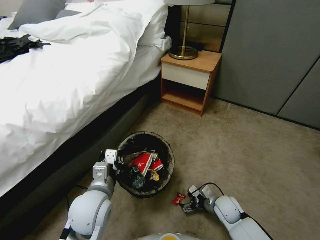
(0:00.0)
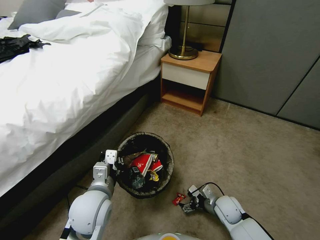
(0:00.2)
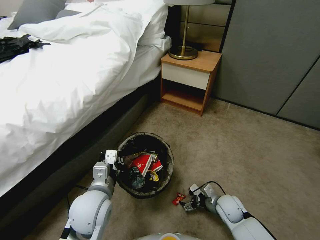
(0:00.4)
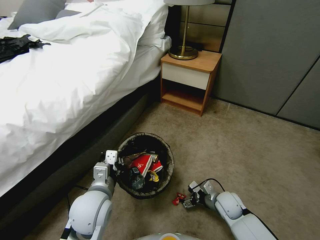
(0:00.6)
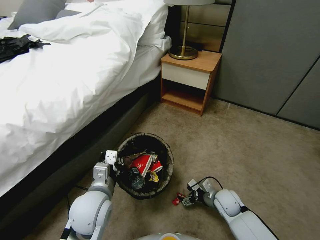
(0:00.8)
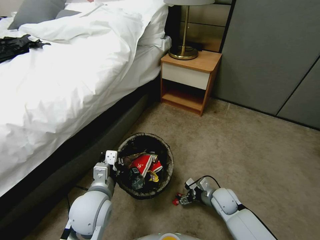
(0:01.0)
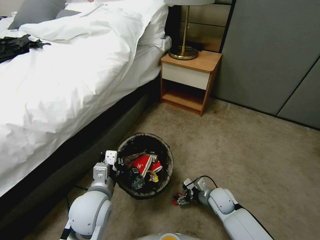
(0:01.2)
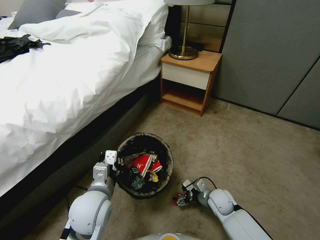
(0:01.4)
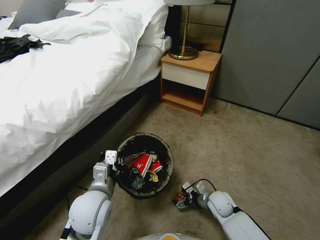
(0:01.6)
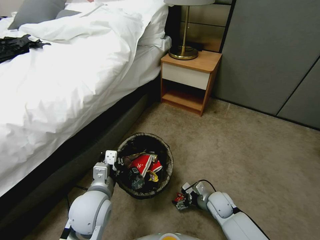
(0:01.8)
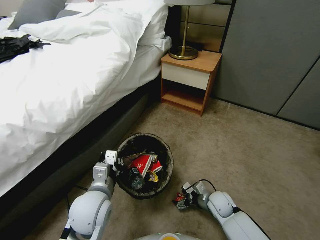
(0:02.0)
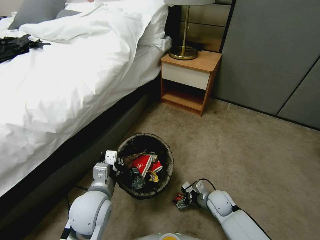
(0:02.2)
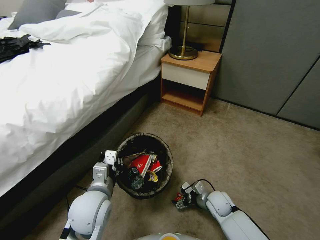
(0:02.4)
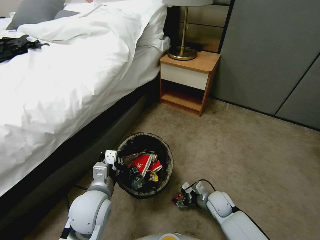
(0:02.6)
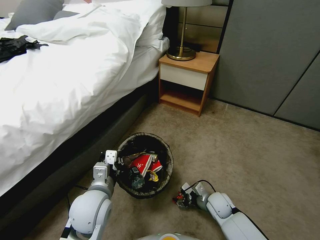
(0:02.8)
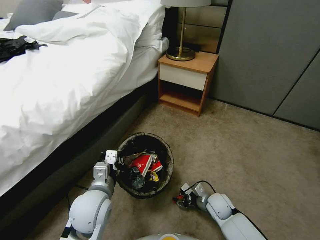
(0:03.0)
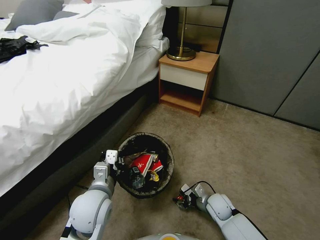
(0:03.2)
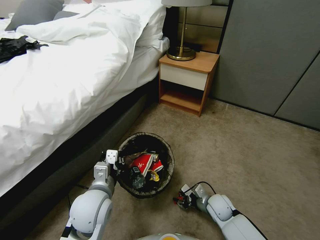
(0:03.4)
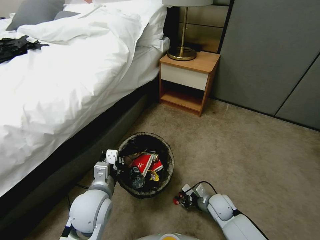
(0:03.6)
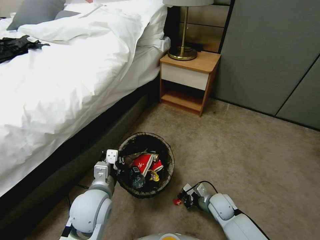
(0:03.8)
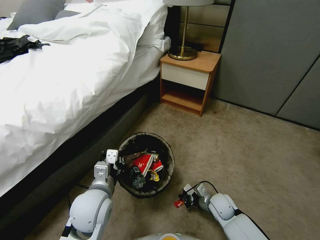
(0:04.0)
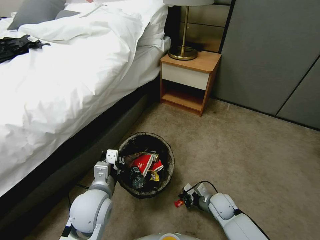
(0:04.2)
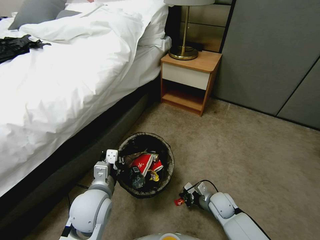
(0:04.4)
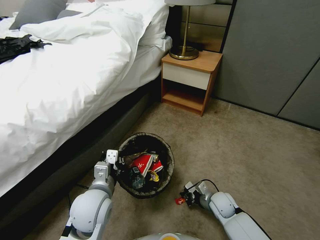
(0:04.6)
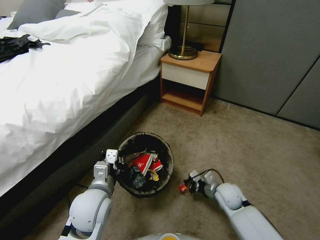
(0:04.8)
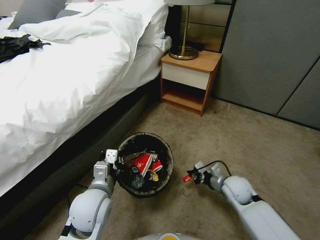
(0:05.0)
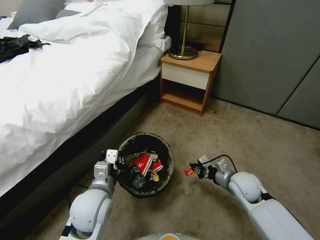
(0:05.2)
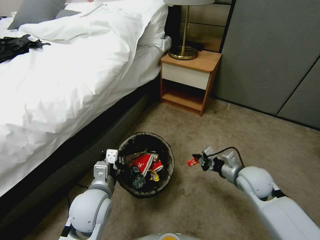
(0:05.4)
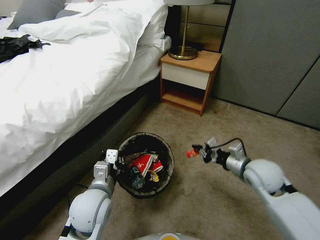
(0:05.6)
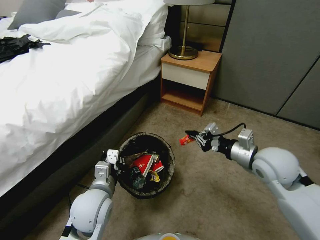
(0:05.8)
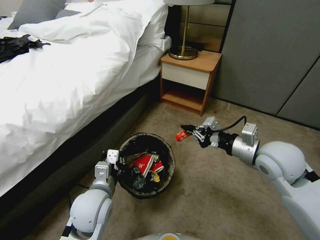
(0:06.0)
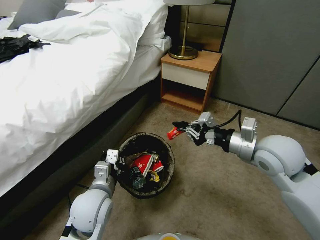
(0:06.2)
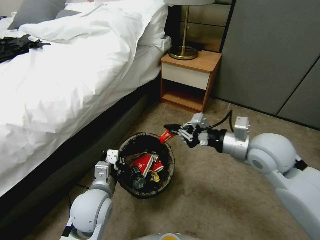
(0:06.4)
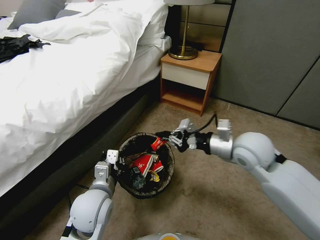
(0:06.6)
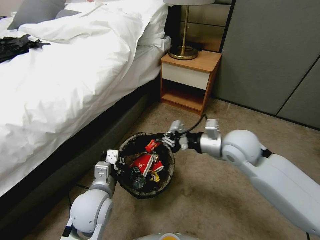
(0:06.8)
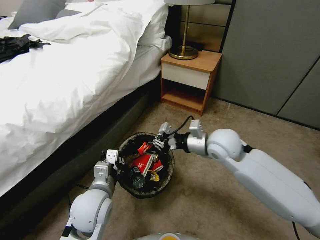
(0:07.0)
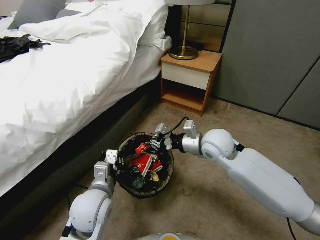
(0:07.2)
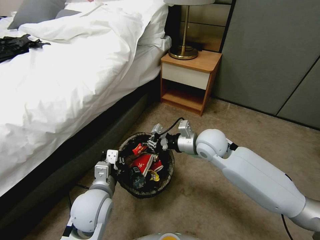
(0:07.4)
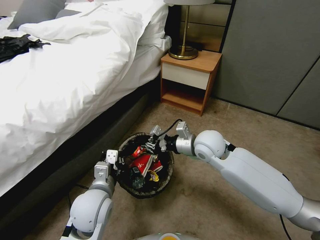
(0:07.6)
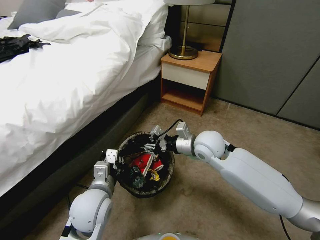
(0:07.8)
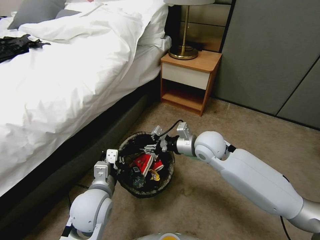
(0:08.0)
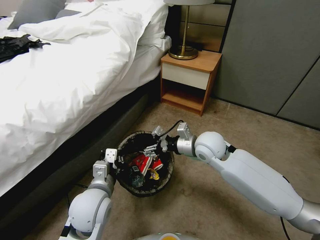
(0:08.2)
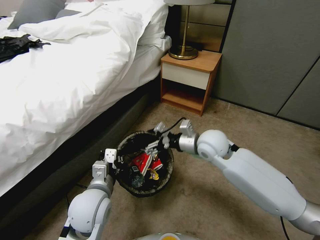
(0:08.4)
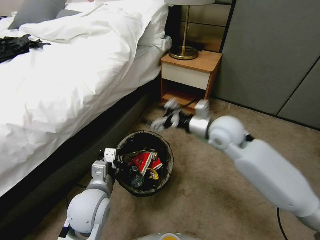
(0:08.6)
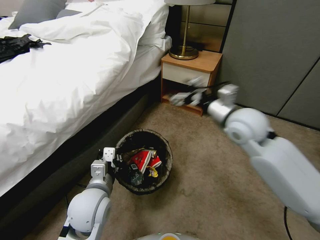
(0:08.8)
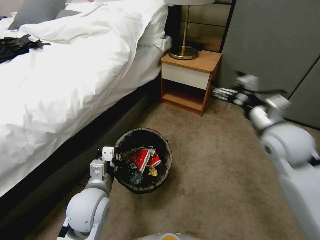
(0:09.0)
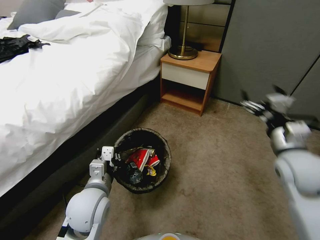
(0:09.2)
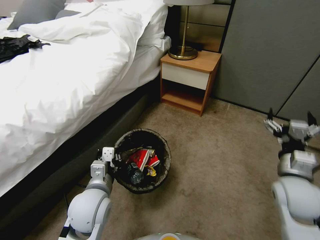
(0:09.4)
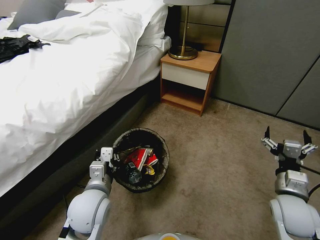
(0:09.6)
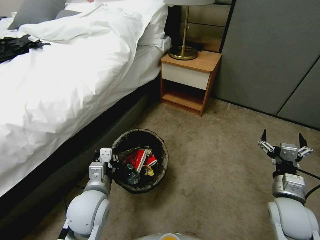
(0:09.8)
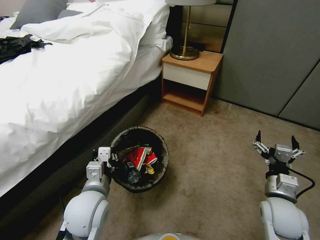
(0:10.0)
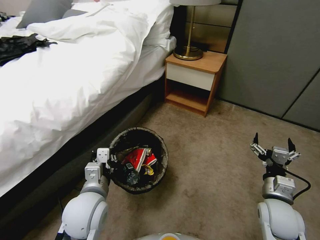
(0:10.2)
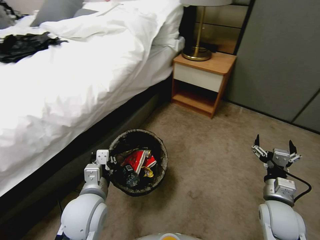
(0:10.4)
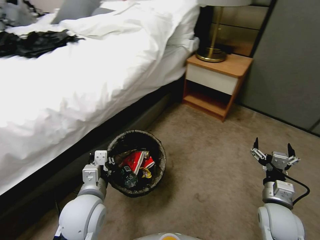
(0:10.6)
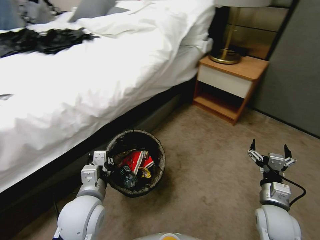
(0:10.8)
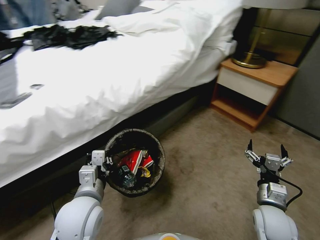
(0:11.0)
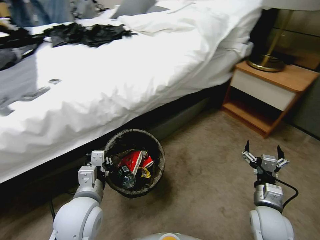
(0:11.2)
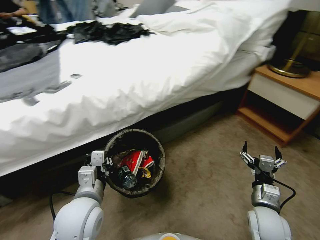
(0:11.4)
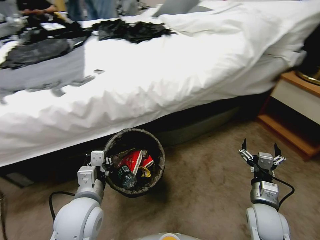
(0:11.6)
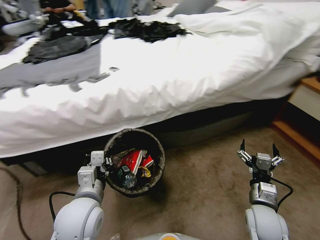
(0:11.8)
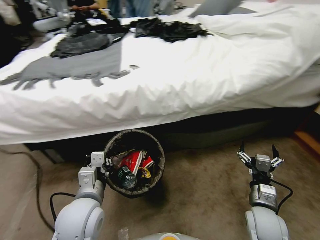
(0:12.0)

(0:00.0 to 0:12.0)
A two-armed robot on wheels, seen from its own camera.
Task of the whole recording: Pick up the trash bin, then pick up the garbage from the floor and place it into the trash bin.
0:00.0 - 0:01.6: The grippers move only a little.
0:01.6 - 0:03.0: The right gripper closes up.
0:03.0 - 0:04.4: The right gripper closes its fingers.
0:04.4 - 0:06.0: The right gripper goes roughly 35 cm upward.
0:06.0 - 0:07.6: The right gripper moves to the left, forward and downward, some 20 cm.
0:07.6 - 0:09.0: The right gripper heads to the right and upward, covering some 20 cm, and opens its fingers.
0:09.0 - 0:10.4: The right gripper shifts roughly 25 cm downward and backward.

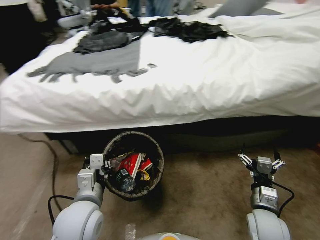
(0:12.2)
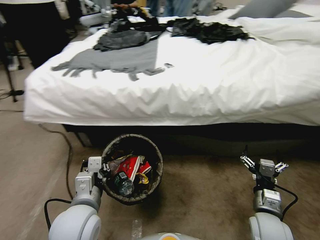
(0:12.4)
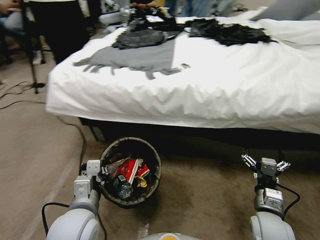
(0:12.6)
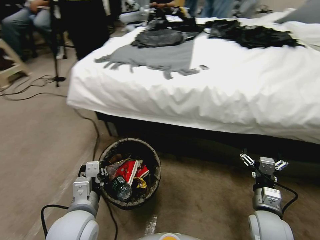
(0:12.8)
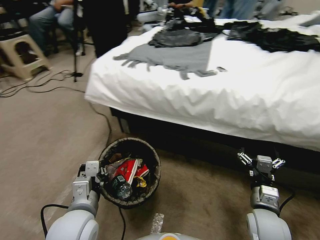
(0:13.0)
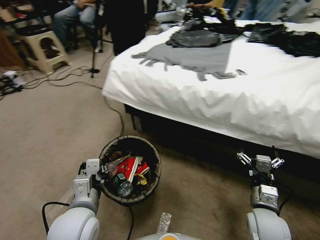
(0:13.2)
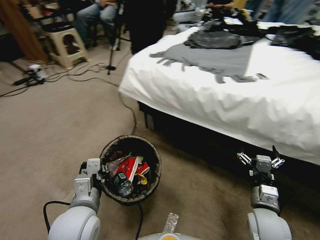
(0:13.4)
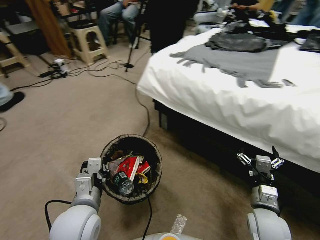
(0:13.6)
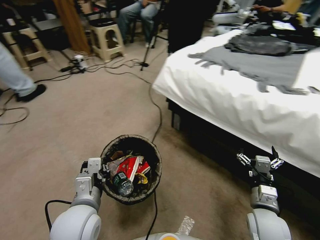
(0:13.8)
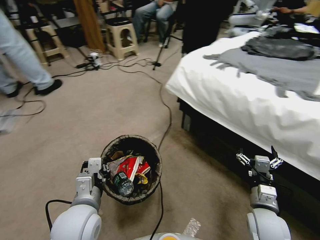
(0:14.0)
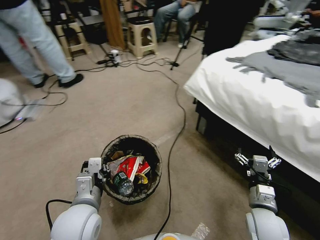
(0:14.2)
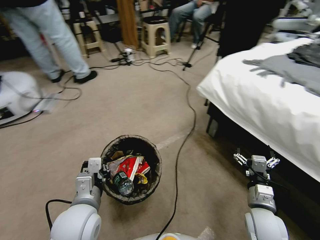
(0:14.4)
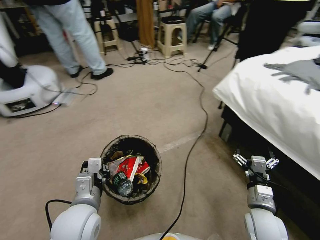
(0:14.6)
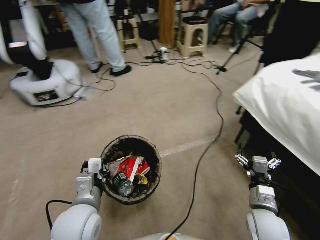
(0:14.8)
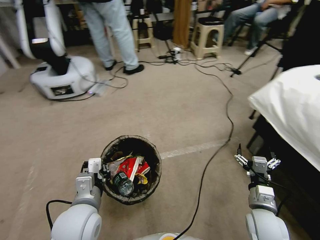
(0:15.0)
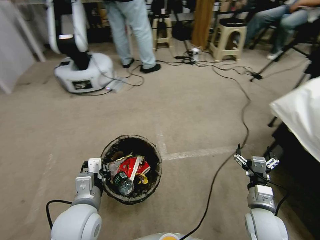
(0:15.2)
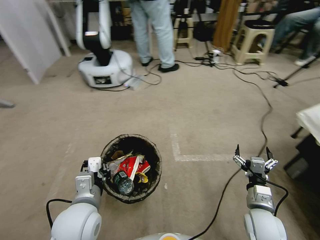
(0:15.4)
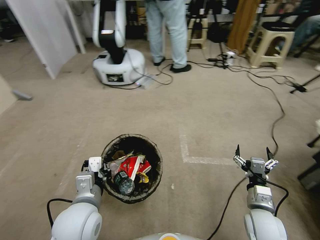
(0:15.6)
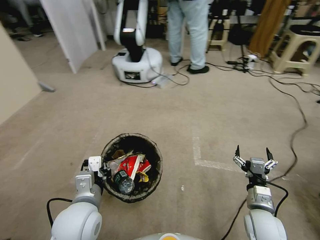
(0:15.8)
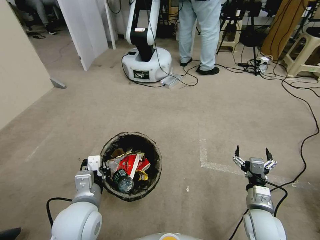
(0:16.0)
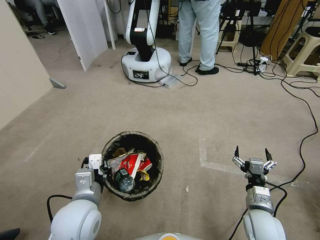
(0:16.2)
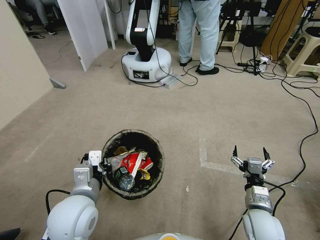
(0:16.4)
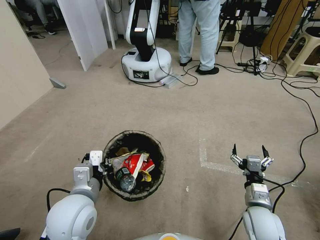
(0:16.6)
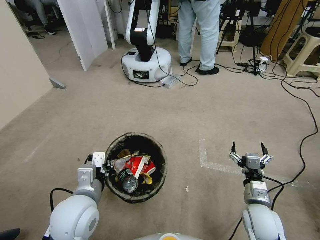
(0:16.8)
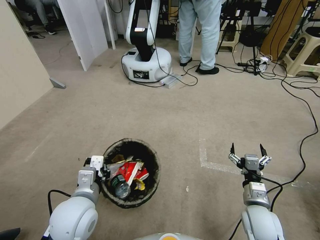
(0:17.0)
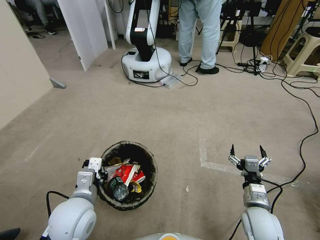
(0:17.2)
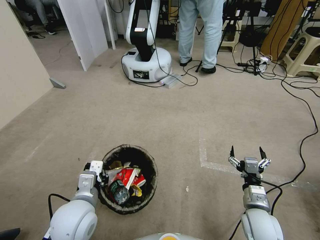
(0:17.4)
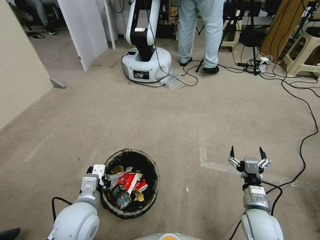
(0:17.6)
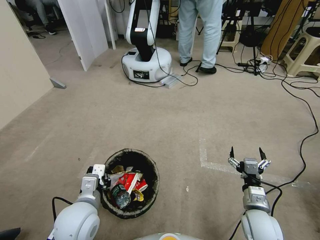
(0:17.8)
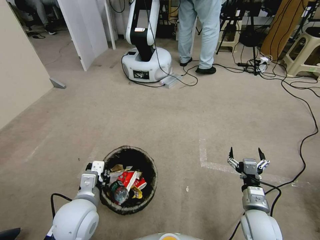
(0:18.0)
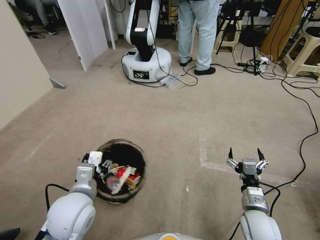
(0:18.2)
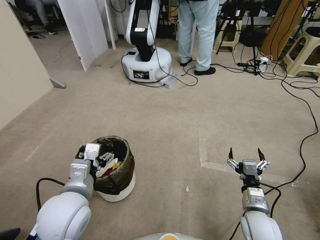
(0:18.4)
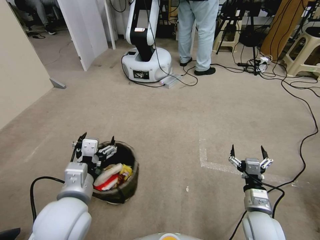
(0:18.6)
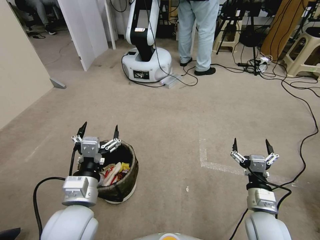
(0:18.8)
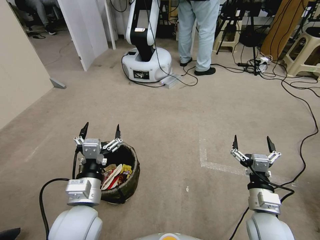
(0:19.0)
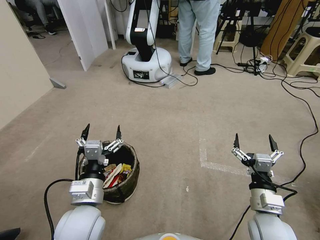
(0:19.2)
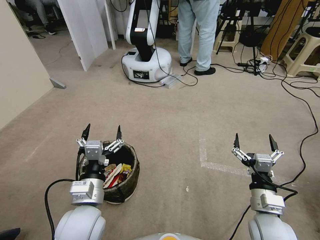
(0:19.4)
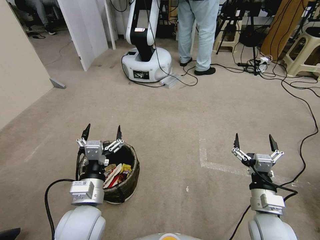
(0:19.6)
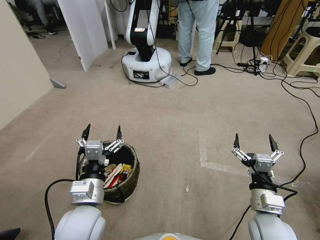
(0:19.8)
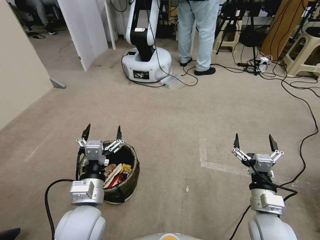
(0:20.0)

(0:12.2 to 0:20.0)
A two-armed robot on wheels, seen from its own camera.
Task of the whole recording: Pick up the trash bin, then pick up the garbage from the floor and place it into the trash bin.
0:16.8 - 0:18.4: The left gripper opens.
0:18.4 - 0:20.0: The right gripper moves upward, roughly 5 cm, while the left gripper changes place by approximately 5 cm.

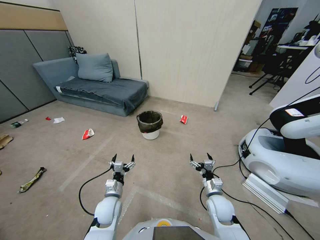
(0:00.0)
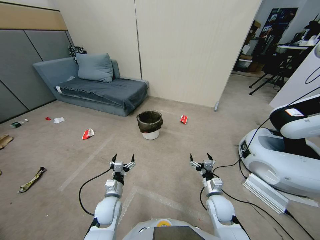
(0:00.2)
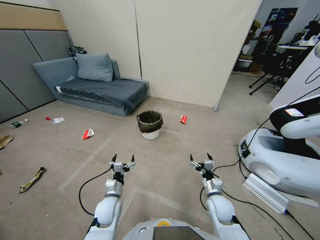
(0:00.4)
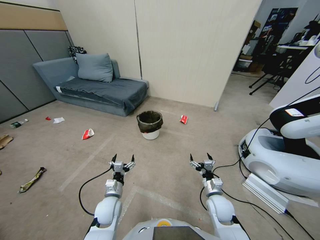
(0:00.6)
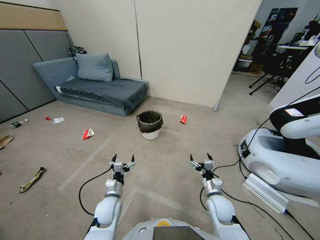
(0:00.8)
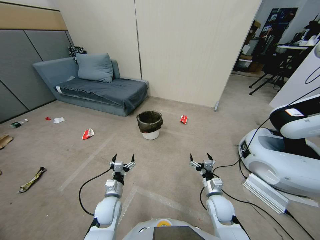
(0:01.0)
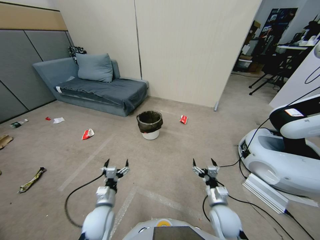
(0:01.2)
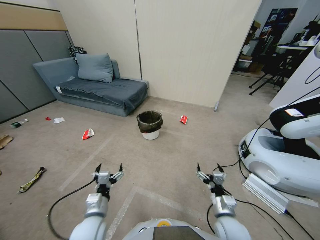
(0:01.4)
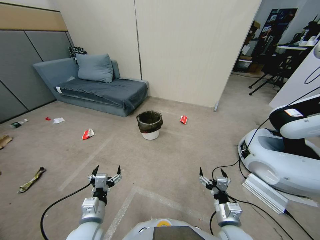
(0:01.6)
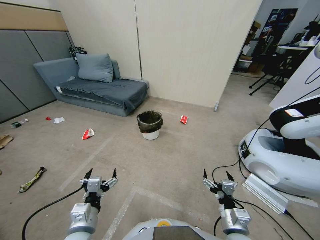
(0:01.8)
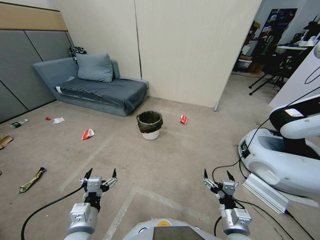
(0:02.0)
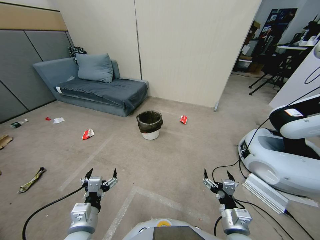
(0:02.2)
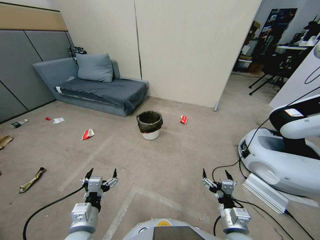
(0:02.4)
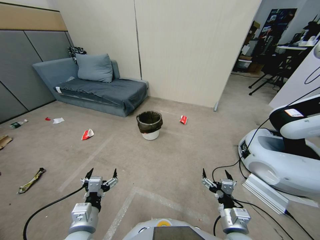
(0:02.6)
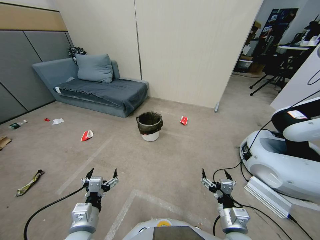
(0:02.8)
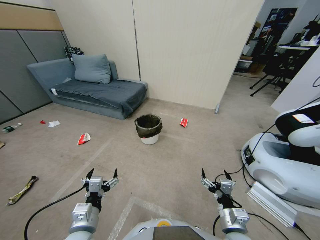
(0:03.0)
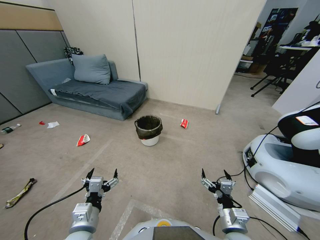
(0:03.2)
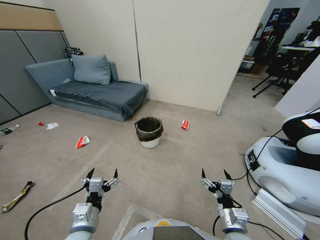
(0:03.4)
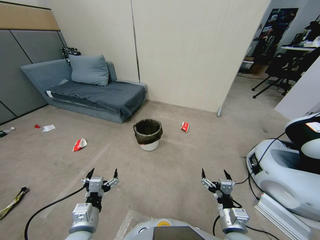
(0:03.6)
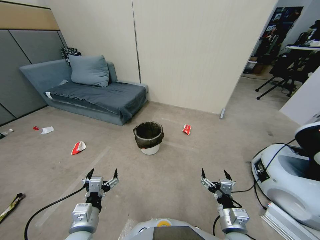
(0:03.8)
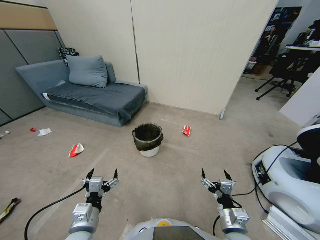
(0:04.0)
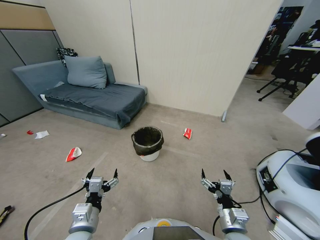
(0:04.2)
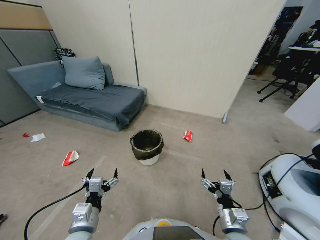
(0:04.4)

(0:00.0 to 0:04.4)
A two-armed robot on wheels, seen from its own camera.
Task of the whole recording: Pick up the trash bin, then pick up the garbage from the floor and place it into the trash bin.
0:01.4 - 0:03.0: The left gripper ends up about 5 cm from where it was.
